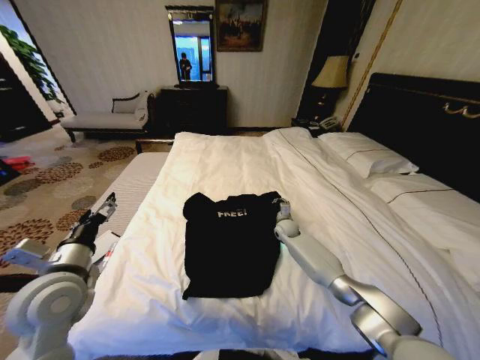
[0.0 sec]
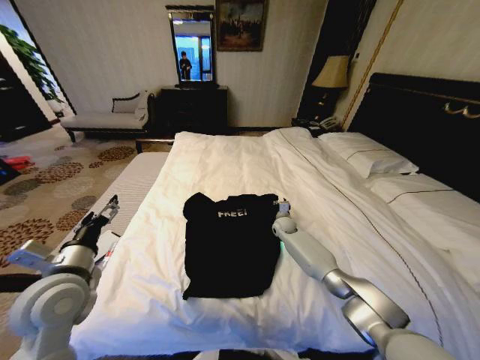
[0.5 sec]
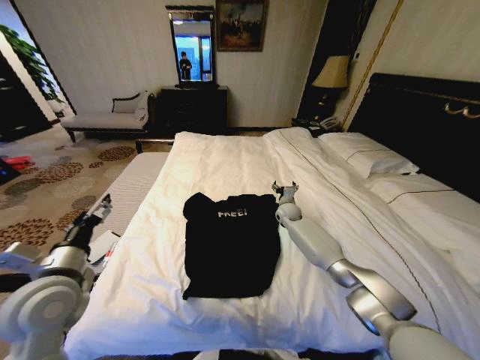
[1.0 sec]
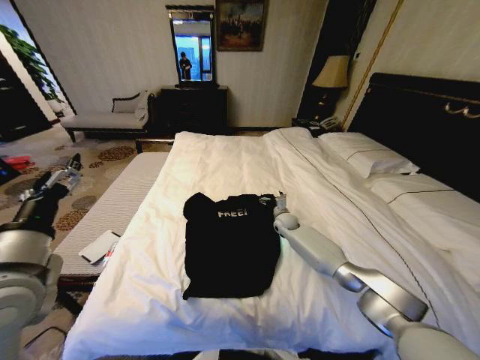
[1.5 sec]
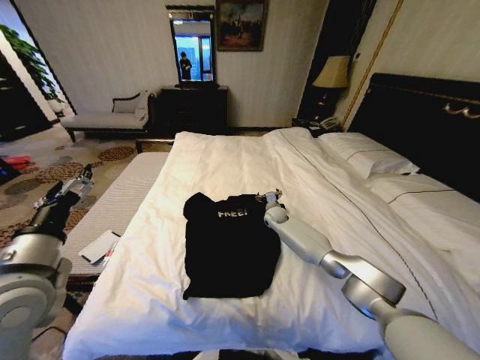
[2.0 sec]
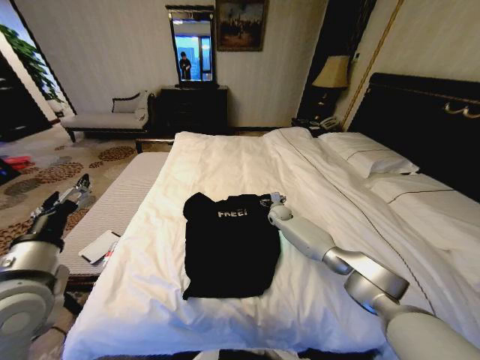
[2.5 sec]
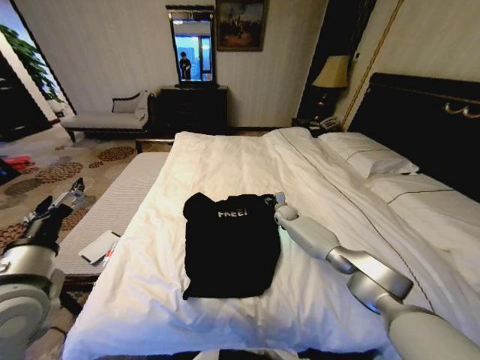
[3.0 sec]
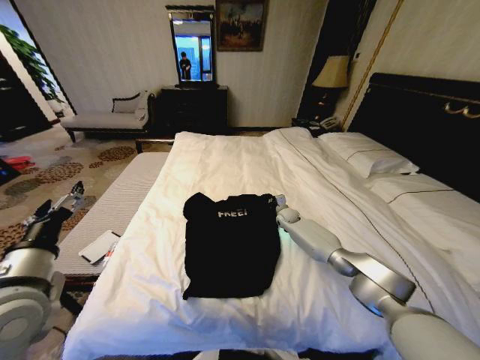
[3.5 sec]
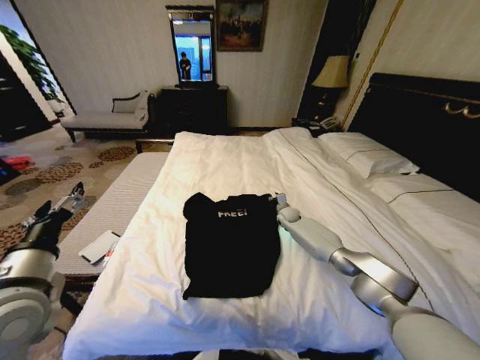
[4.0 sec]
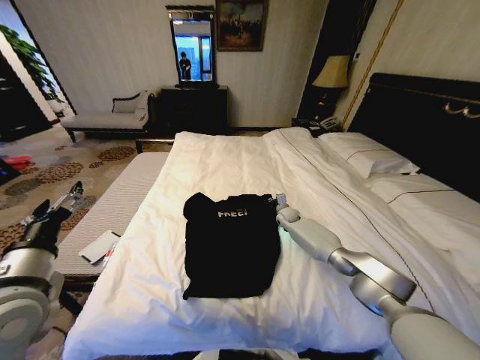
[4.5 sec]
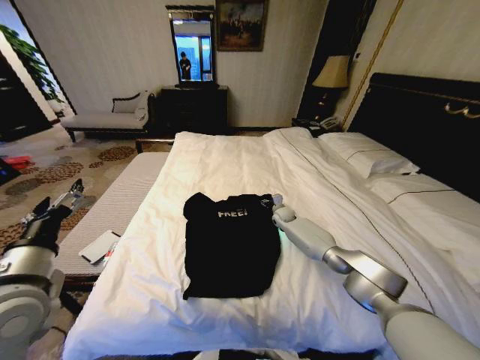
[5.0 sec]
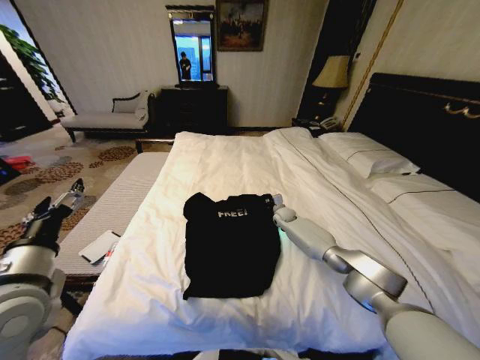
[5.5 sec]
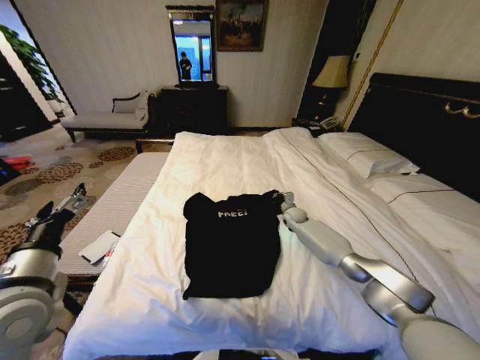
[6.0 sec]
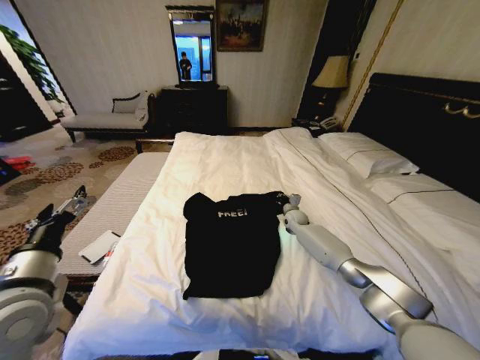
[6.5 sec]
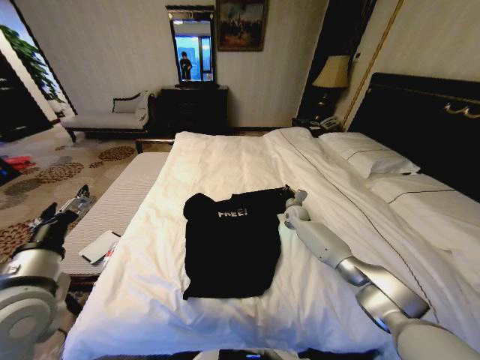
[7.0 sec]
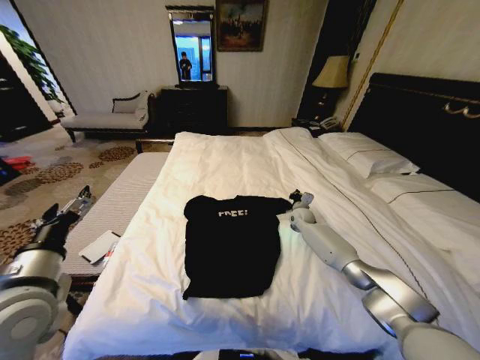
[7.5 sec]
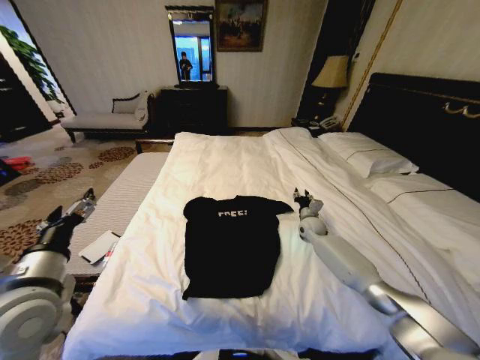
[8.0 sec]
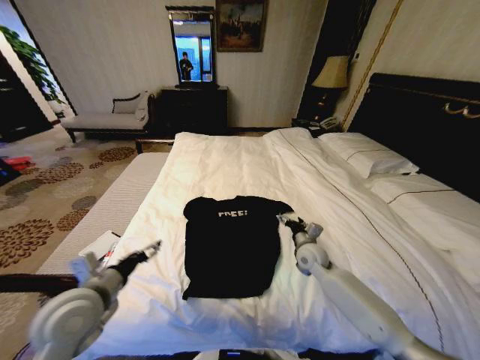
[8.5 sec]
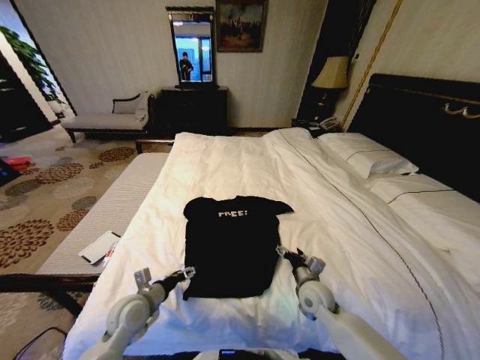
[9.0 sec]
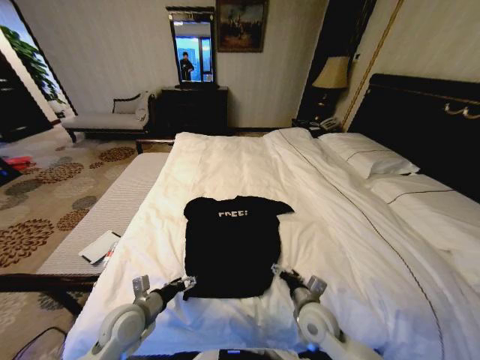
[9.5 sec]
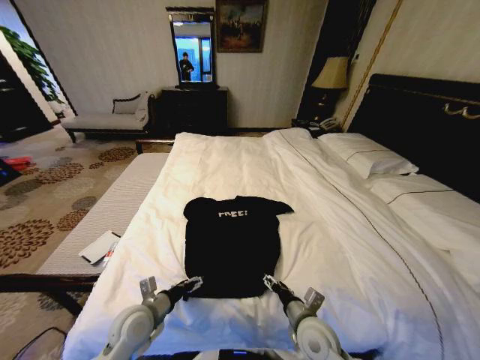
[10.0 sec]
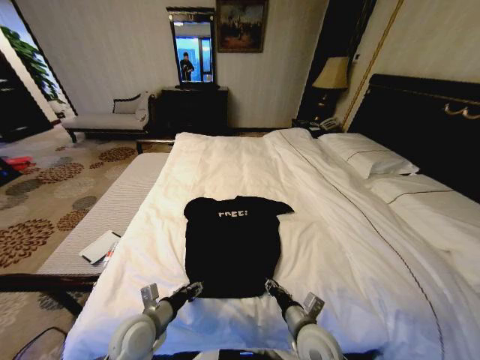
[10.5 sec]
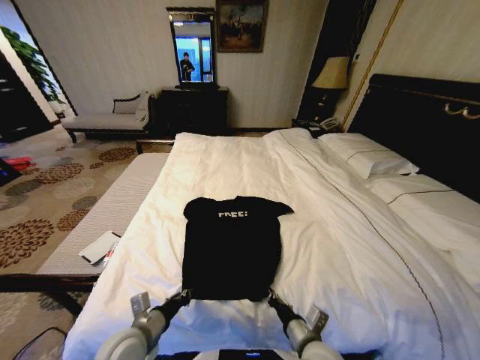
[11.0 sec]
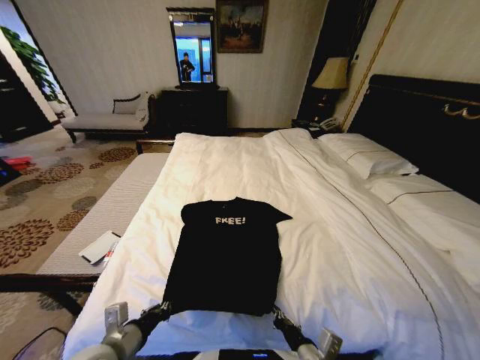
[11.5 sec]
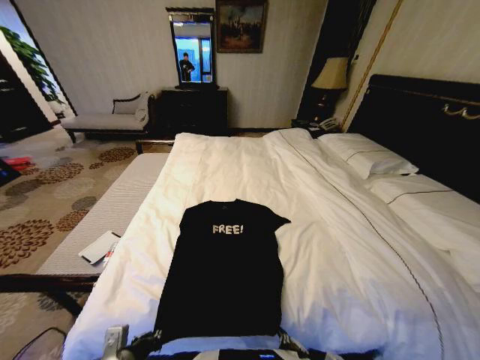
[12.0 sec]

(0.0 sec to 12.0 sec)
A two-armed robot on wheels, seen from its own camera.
Task of the whole recording: Fold the clothes on the bed.
0.0 sec - 2.0 sec: The right gripper changes place by roughly 5 cm, and opens up. The left gripper moves upward, approximately 5 cm.
2.0 sec - 4.0 sec: The right gripper travels to the right by about 5 cm, and closes its fingers.
4.0 sec - 6.0 sec: The right gripper opens and closes again.
6.0 sec - 8.0 sec: The right gripper goes about 5 cm backward, and opens.
8.0 sec - 10.0 sec: The right gripper is displaced backward by roughly 35 cm, and opens. Meanwhile the left gripper goes approximately 20 cm downward and to the right.
10.0 sec - 12.0 sec: The grippers both shift backward by some 15 cm. The right gripper closes. Meanwhile the left gripper closes.

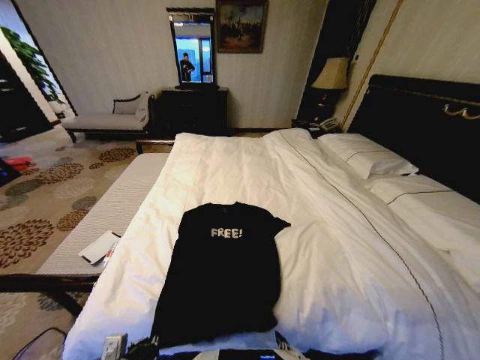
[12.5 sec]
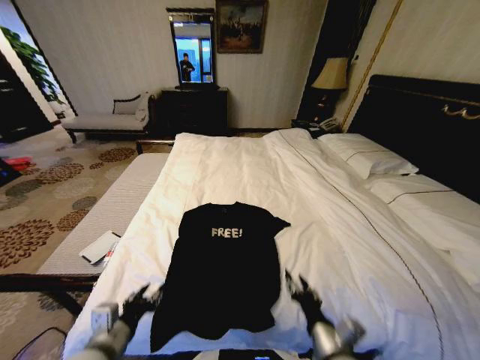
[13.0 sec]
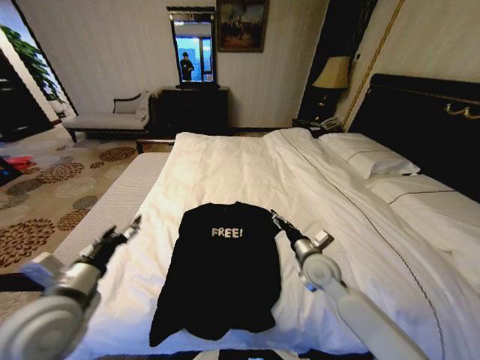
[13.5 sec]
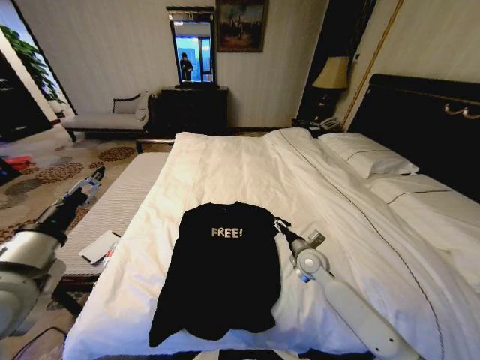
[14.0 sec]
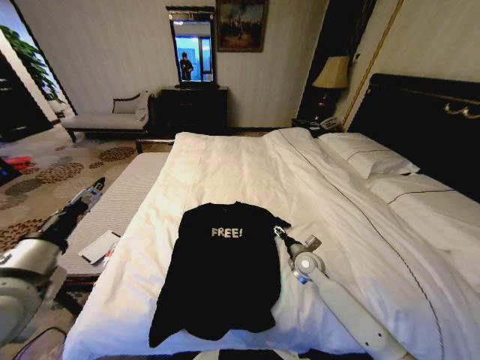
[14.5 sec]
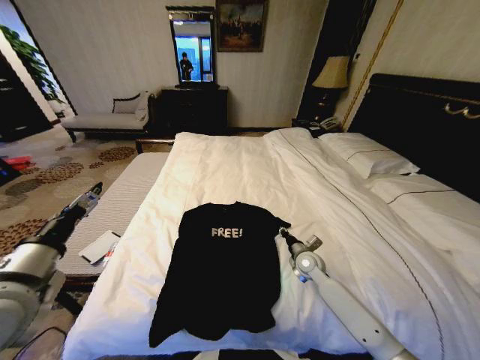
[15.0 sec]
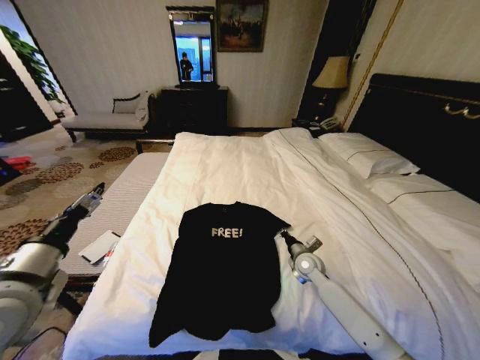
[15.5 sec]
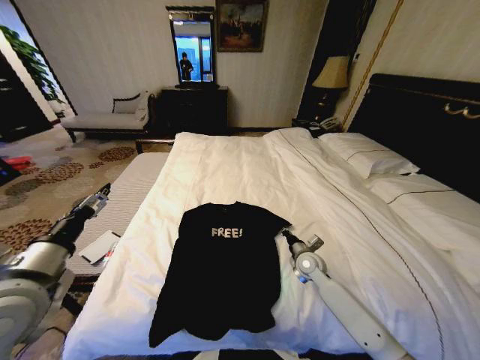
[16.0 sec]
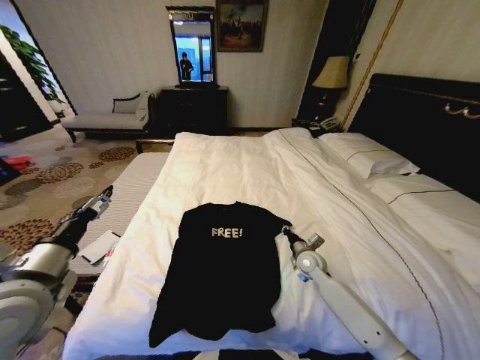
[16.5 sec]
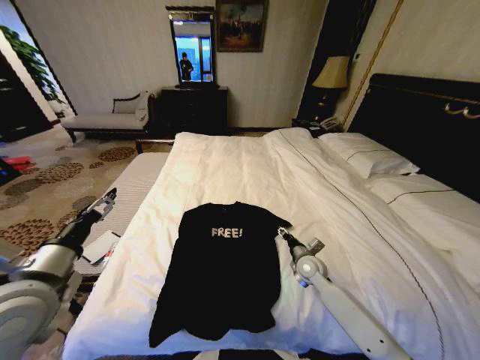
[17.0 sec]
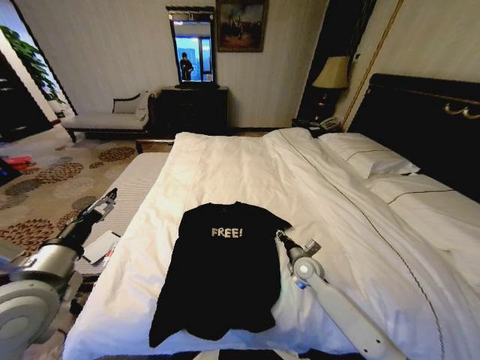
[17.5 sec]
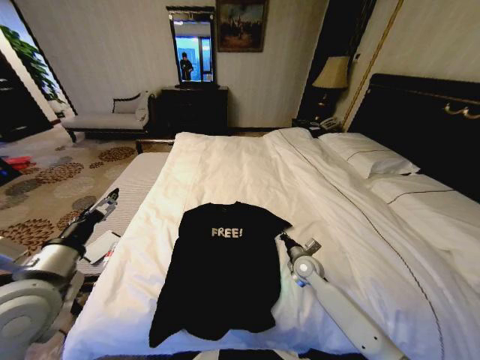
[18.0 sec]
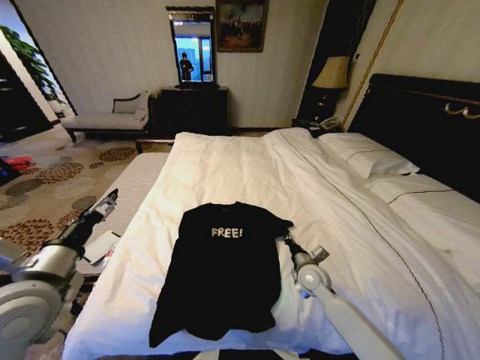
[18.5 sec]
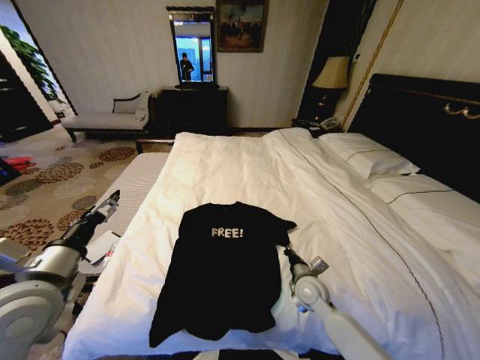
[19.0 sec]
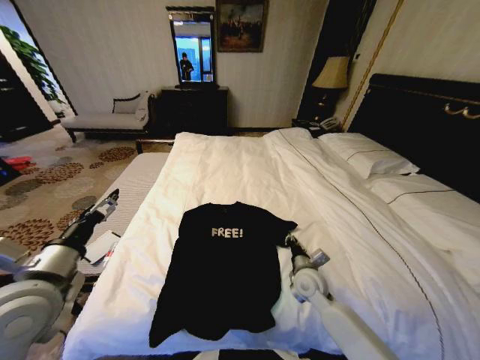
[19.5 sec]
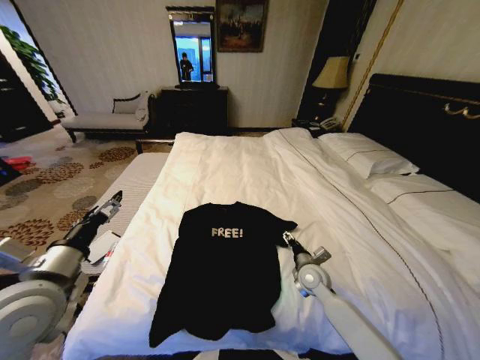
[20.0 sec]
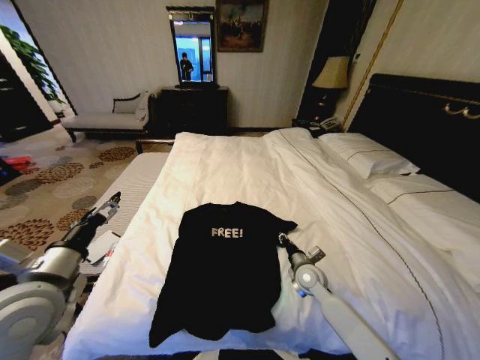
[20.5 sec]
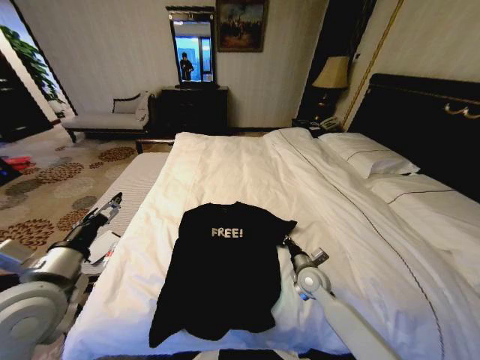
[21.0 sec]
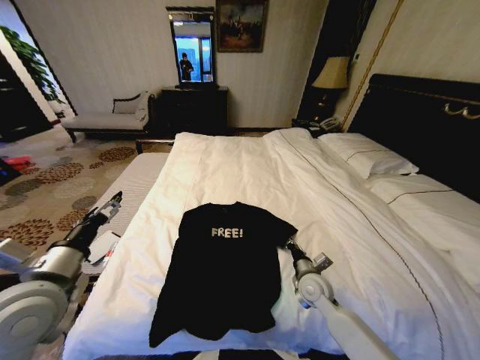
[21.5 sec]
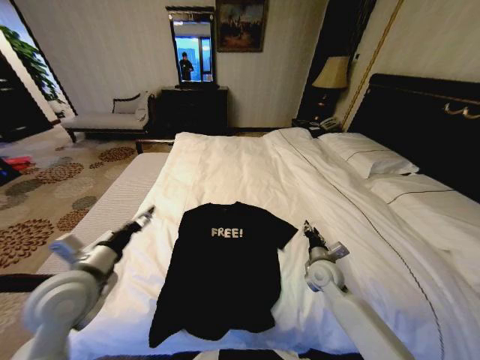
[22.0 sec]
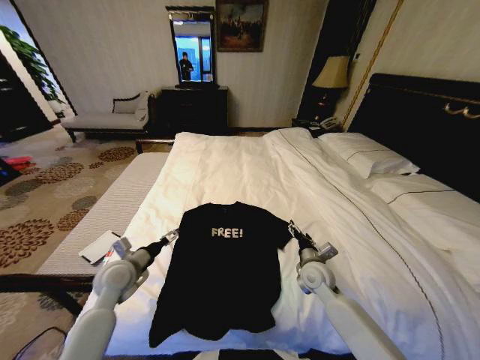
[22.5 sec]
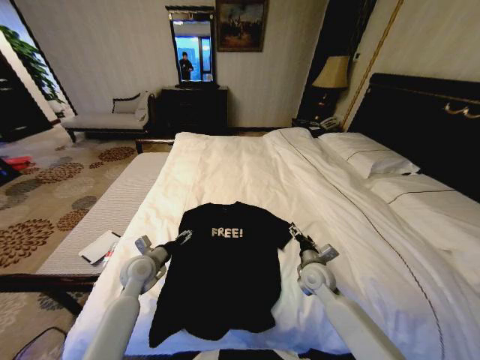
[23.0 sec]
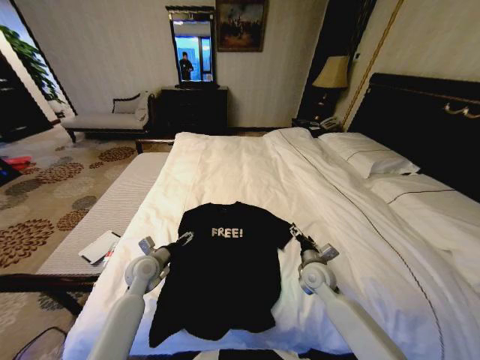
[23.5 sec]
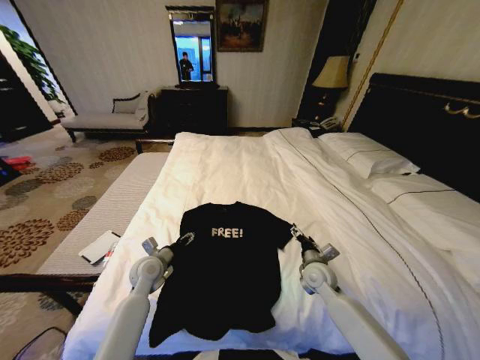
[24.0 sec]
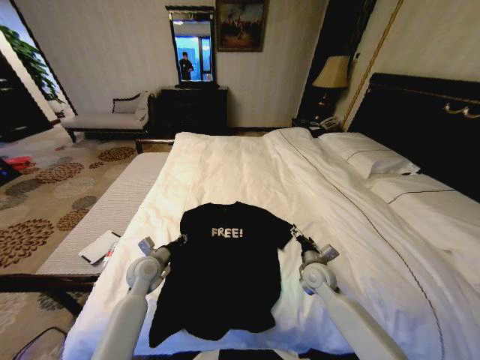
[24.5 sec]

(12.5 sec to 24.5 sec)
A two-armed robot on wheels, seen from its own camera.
Task of the whole recording: Fold the clothes on the bed.
12.5 sec - 14.5 sec: The right gripper moves forward, approximately 35 cm, and opens; the left gripper travels upward, forward and to the left by some 25 cm, and opens its fingers.
14.5 sec - 16.5 sec: The right gripper closes.
16.5 sec - 18.5 sec: The right gripper travels backward by approximately 5 cm, and opens and closes again.
18.5 sec - 20.5 sec: The right gripper opens up.
20.5 sec - 22.5 sec: The right gripper opens up, while the left gripper heads downward and forward, covering approximately 20 cm.
22.5 sec - 24.5 sec: The left gripper heads downward, covering approximately 5 cm, and closes up.

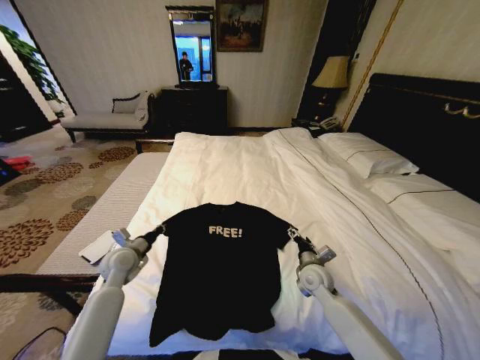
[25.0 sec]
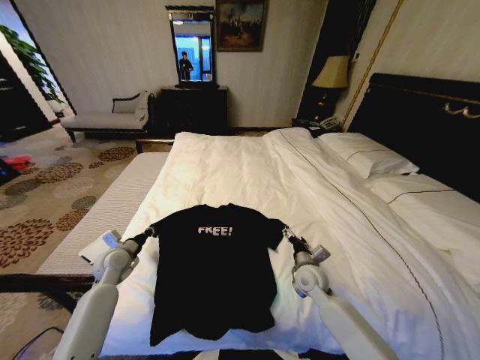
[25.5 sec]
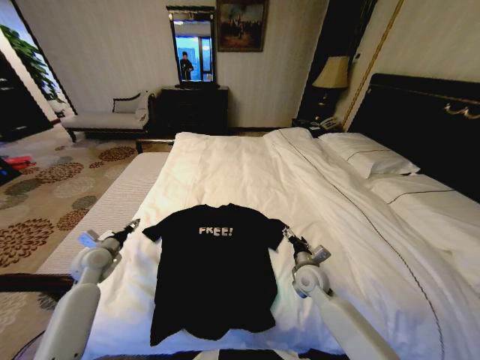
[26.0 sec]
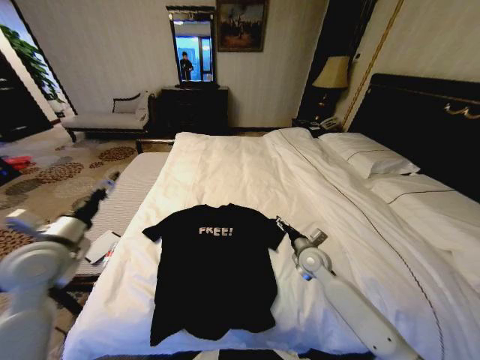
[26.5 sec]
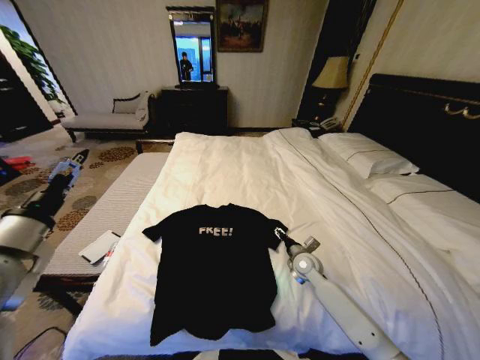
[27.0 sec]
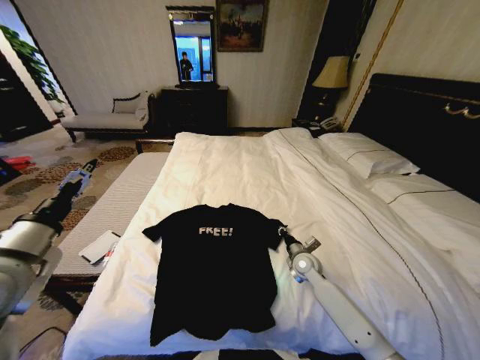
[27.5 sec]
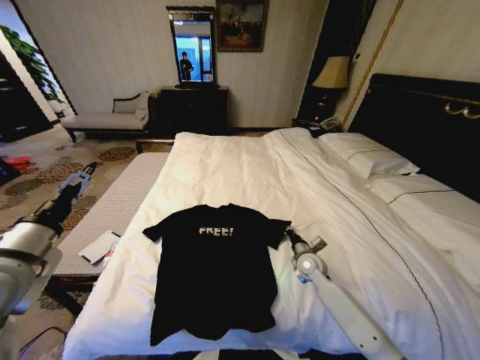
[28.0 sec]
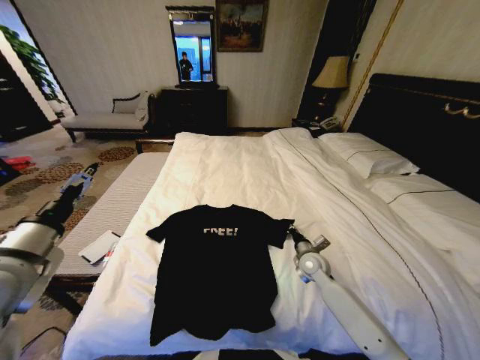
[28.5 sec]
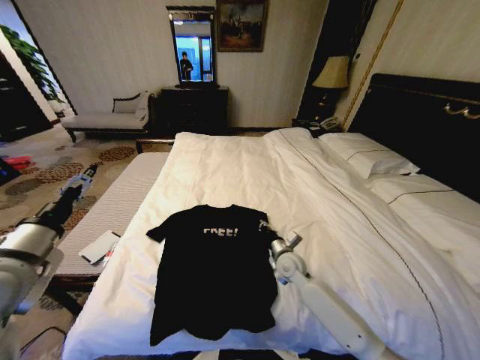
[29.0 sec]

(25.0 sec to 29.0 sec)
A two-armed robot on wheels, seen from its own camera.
Task of the whole recording: Fold the clothes on the bed.
25.0 sec - 27.0 sec: The right gripper changes place by some 5 cm, while the left gripper shifts some 25 cm upward and backward, and opens up.
27.0 sec - 29.0 sec: The right gripper moves to the left, approximately 5 cm, and closes.
